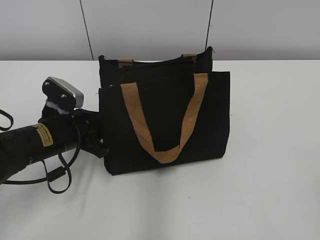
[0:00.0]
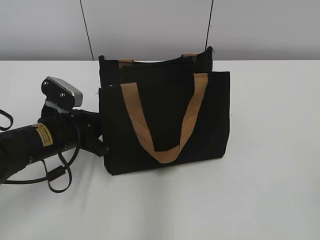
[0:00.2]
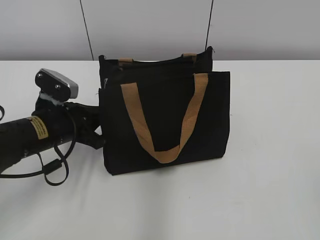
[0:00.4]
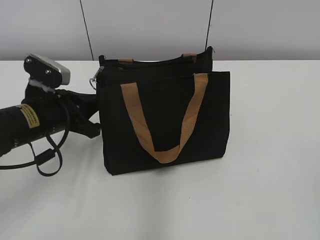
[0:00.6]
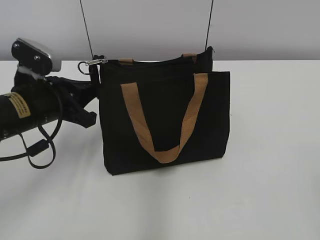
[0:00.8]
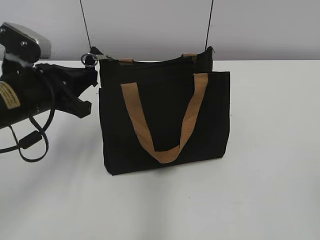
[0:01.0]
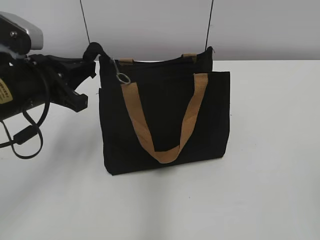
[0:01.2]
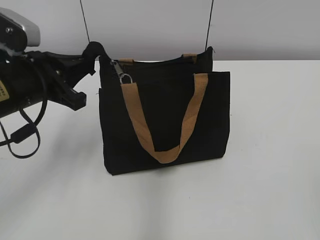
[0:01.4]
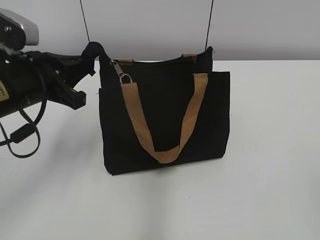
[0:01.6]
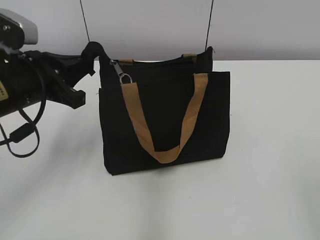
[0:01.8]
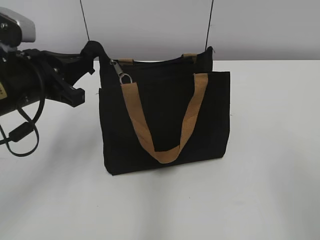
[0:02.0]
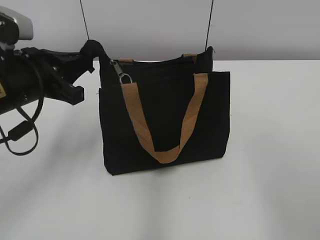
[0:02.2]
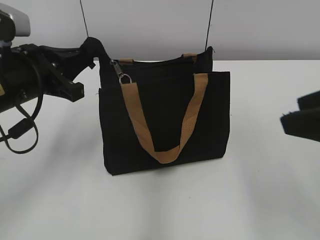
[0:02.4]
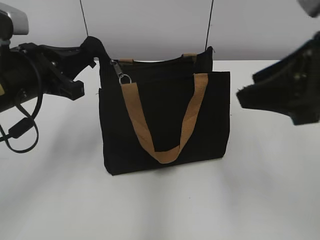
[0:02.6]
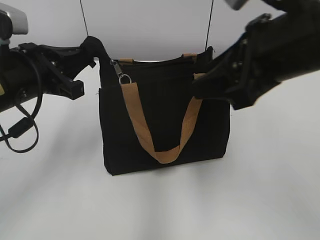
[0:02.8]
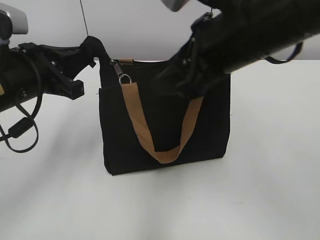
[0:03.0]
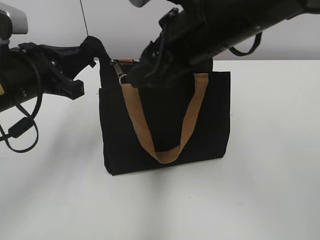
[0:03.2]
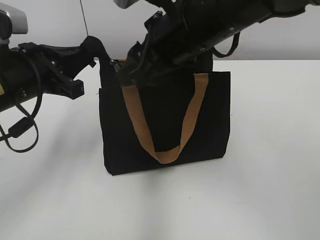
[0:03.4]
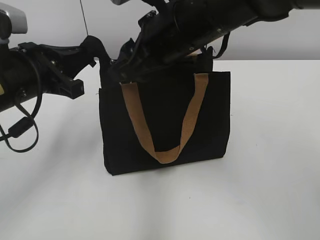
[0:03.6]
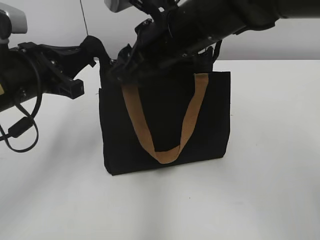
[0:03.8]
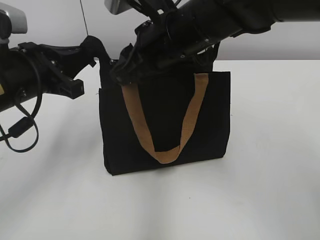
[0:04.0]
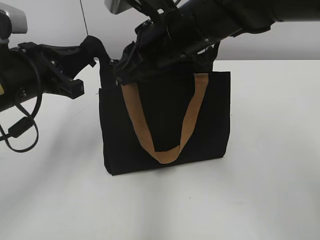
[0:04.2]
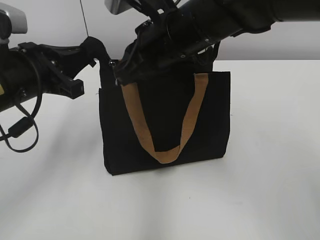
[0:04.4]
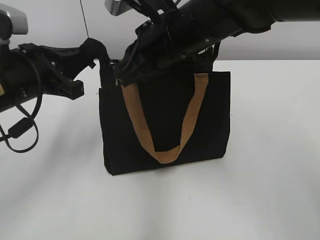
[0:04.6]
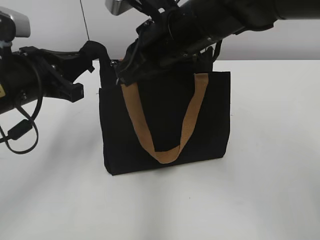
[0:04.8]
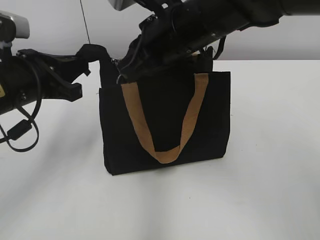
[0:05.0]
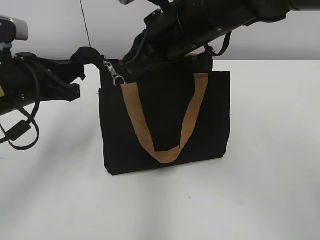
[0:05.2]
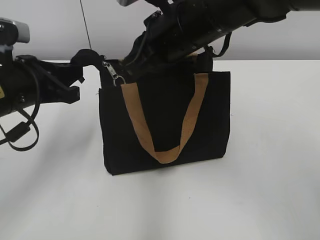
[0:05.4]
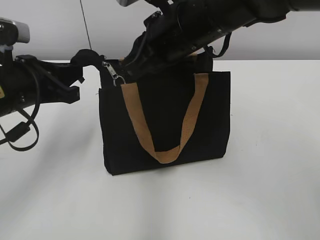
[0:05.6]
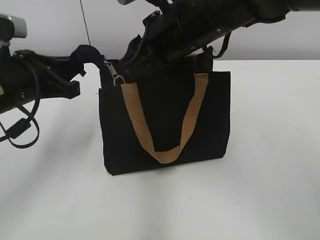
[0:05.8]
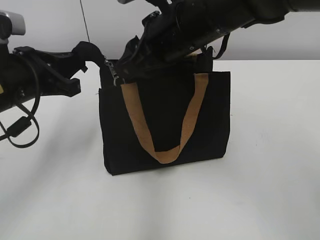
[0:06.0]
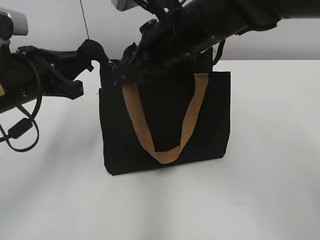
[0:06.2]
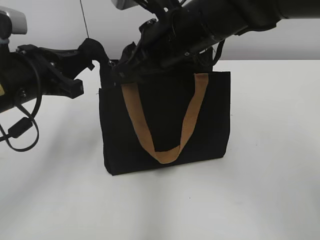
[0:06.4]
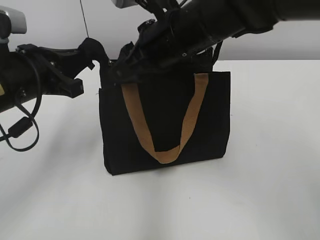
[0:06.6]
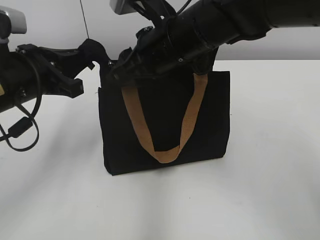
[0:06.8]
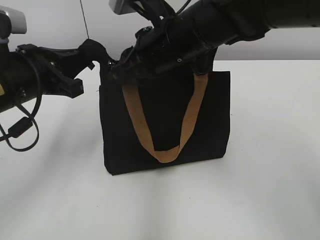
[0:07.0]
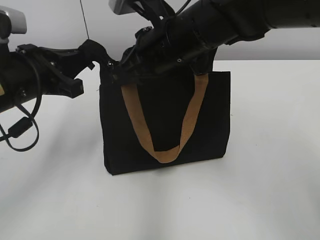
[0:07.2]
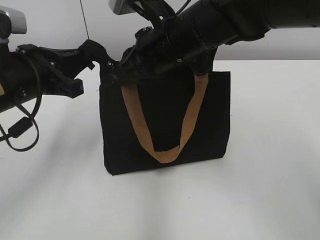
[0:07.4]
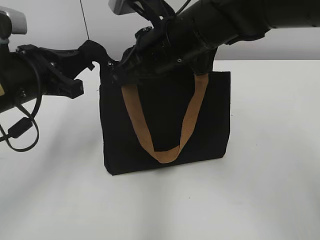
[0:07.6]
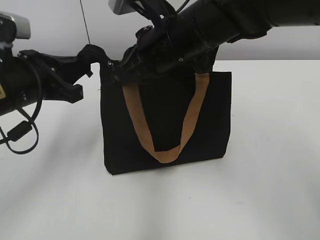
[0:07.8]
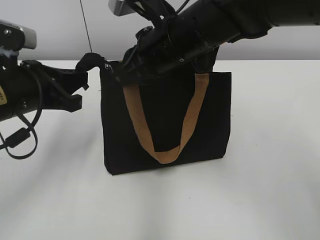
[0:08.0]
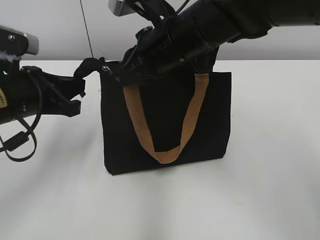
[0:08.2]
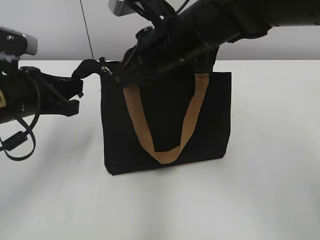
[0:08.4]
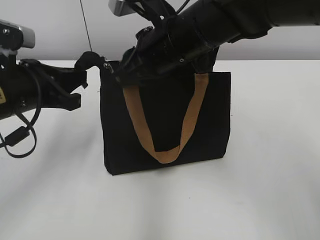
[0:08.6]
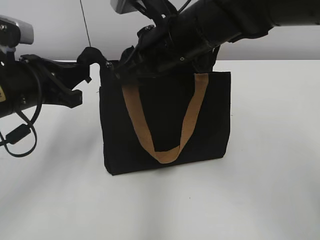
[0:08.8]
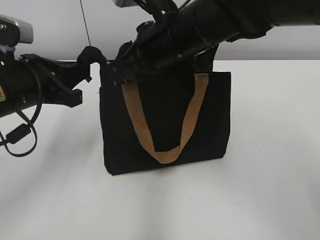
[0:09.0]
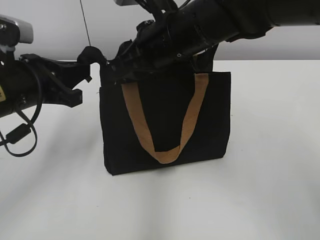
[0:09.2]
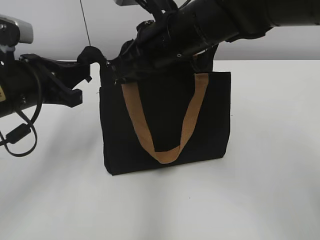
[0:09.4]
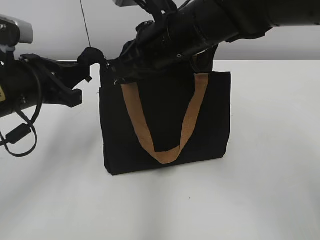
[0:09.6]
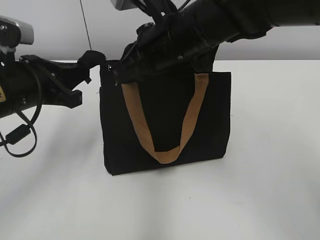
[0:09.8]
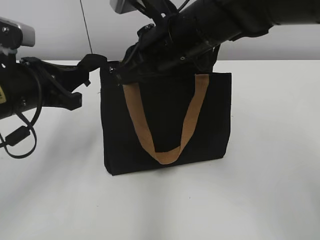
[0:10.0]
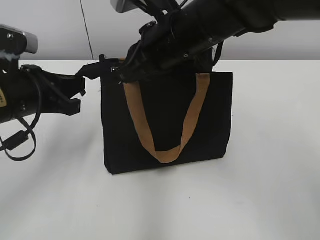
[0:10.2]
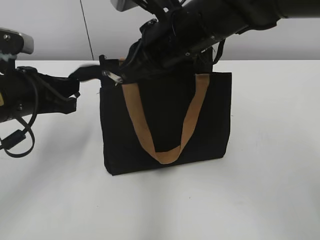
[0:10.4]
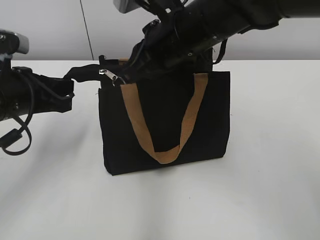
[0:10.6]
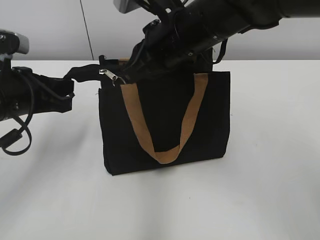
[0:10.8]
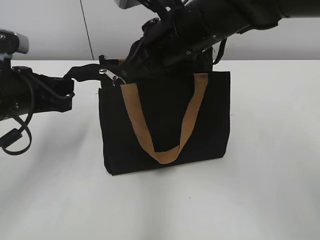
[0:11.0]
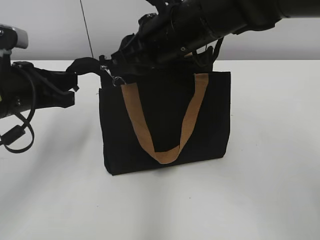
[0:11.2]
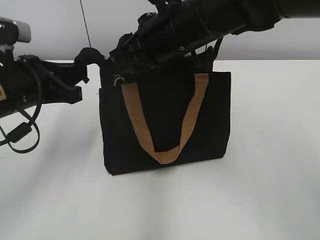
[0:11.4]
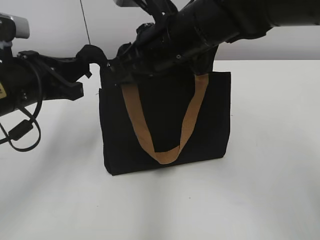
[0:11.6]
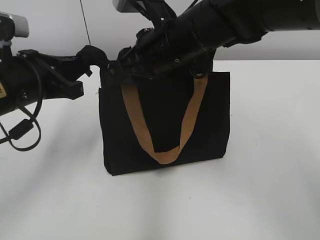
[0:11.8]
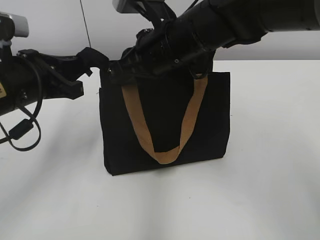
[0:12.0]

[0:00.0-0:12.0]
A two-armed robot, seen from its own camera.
0:00.0 to 0:01.6: The left gripper moves upward, roughly 10 cm, and closes its fingers.
0:01.6 to 0:03.0: The right gripper is displaced forward and to the left by about 30 cm.
0:03.0 to 0:04.4: The right gripper travels forward and to the left by some 10 cm, and closes its fingers.
0:04.4 to 0:06.0: The right gripper opens.
0:06.0 to 0:07.6: The right gripper closes.
0:07.6 to 0:09.0: The right gripper opens its fingers.
0:09.0 to 0:10.4: The right gripper closes.
0:10.4 to 0:12.0: The right gripper opens.

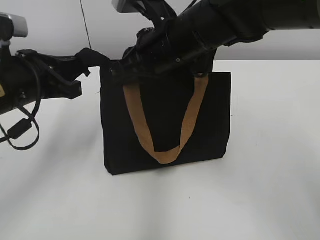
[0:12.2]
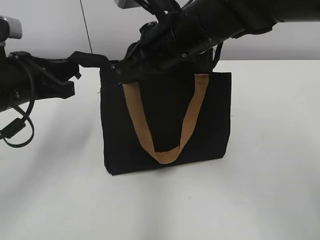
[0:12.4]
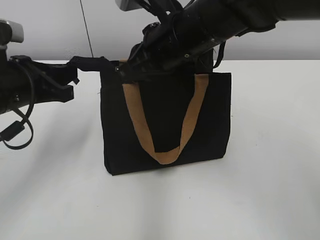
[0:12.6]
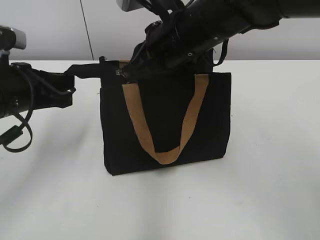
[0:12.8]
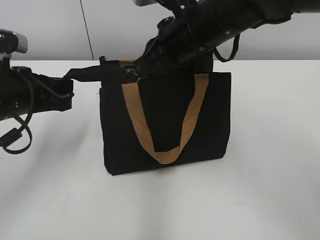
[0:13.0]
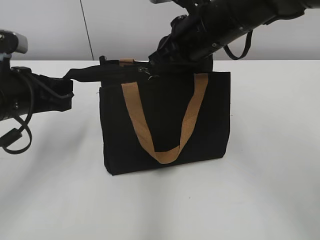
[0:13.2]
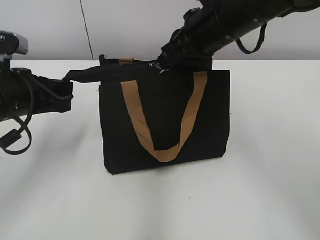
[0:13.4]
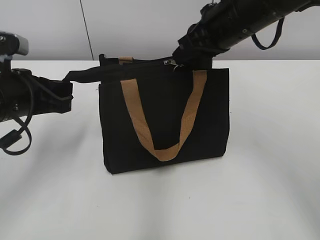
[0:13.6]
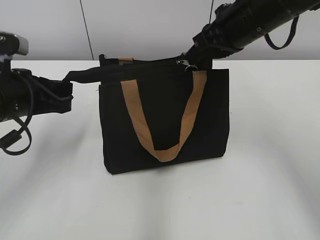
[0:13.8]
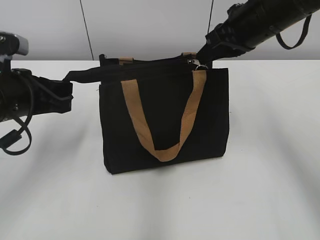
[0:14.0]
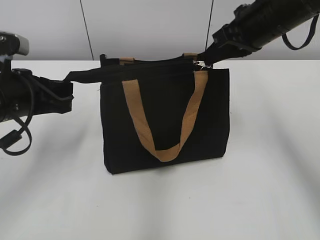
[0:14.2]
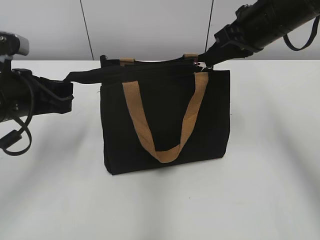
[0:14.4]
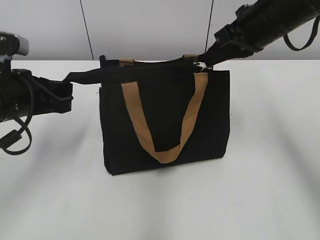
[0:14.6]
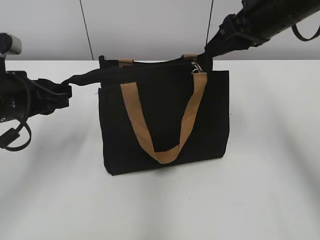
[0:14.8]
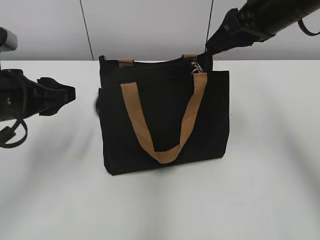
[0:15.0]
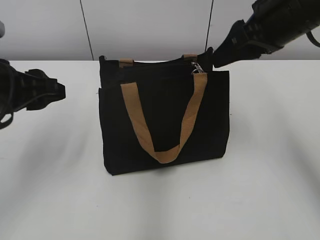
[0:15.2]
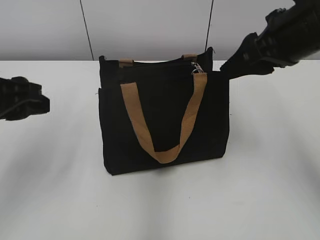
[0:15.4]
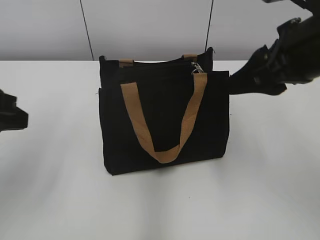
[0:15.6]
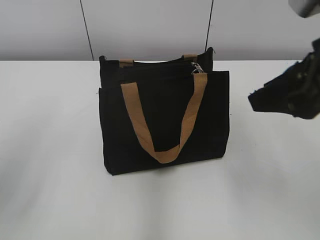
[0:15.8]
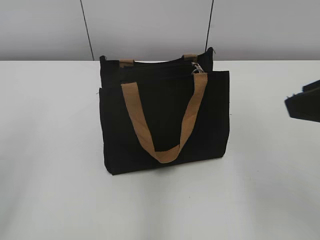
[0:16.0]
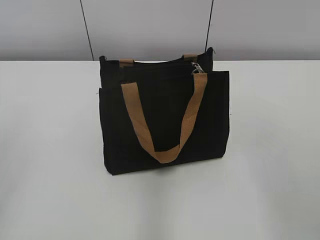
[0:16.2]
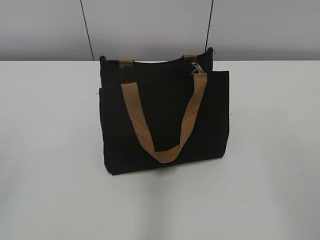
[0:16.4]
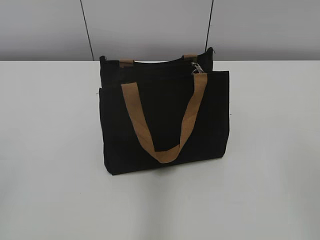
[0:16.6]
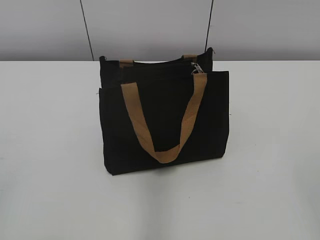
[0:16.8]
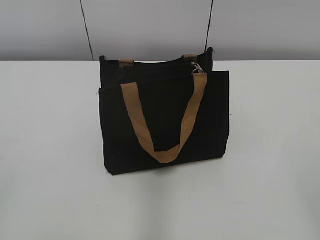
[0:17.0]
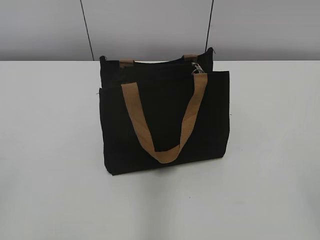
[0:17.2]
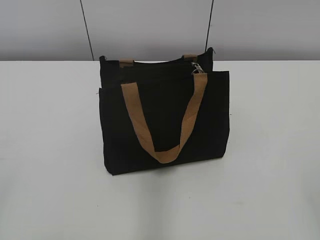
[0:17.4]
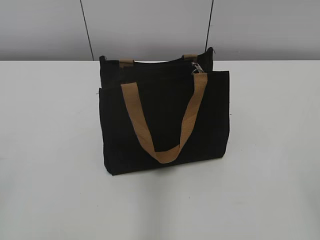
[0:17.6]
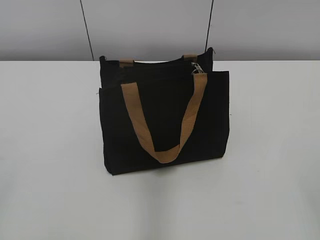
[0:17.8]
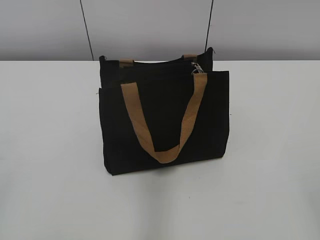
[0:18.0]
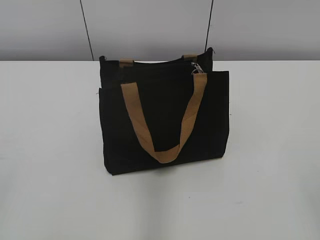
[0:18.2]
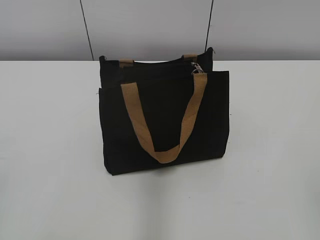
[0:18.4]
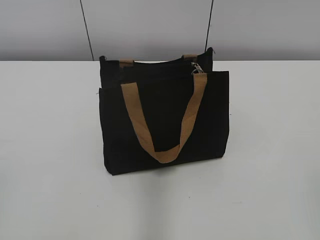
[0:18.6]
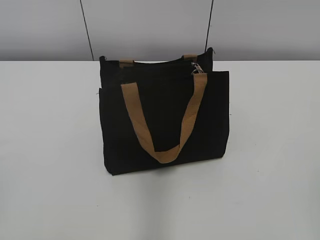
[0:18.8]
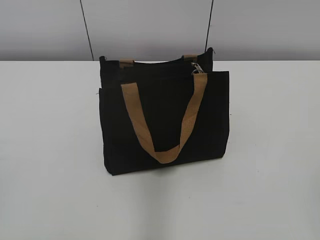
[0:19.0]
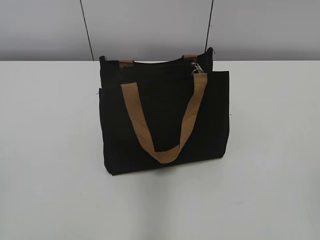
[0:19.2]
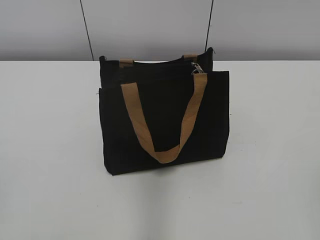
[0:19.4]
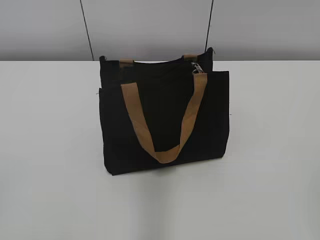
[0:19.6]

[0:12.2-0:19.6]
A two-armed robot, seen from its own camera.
Step, 0:12.2 to 0:14.6: Zip up the bag with your right hand.
Step, 0:14.8 to 0:15.0: Grab the zipper with your left hand.
0:12.2 to 0:13.6: The right gripper moves to the right, about 10 cm.
0:13.6 to 0:15.2: The right gripper goes some 5 cm to the right, and opens. The left gripper opens.
0:15.2 to 0:16.6: The right gripper goes approximately 30 cm backward. Meanwhile the left gripper moves backward and to the left, some 25 cm.

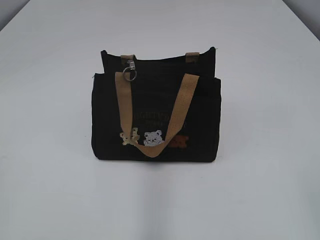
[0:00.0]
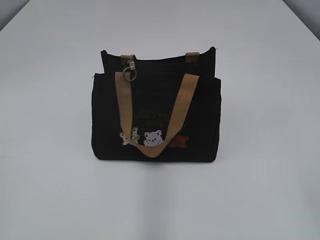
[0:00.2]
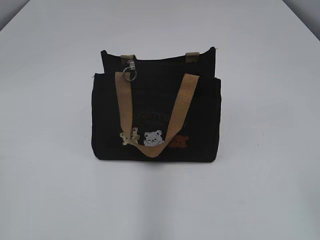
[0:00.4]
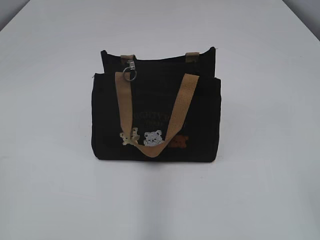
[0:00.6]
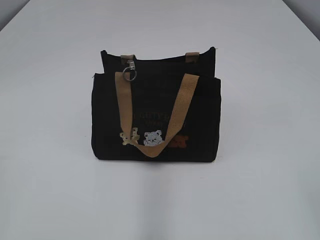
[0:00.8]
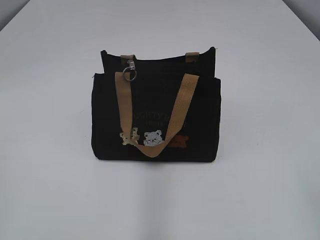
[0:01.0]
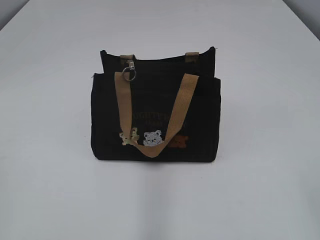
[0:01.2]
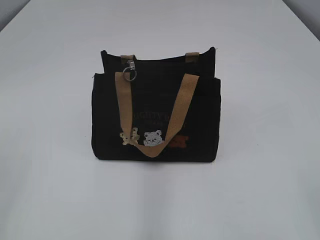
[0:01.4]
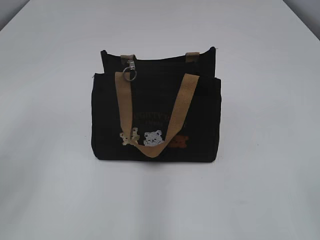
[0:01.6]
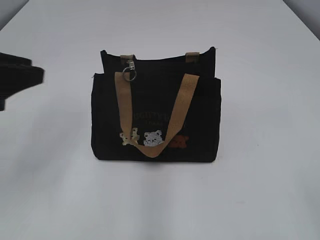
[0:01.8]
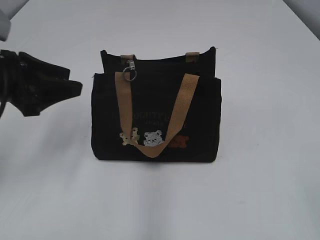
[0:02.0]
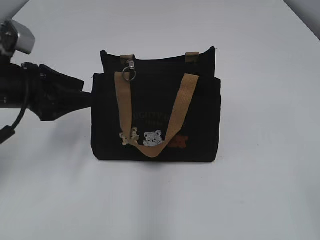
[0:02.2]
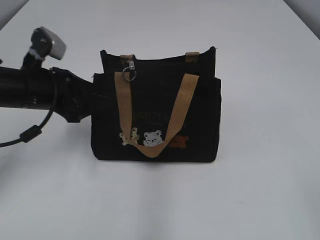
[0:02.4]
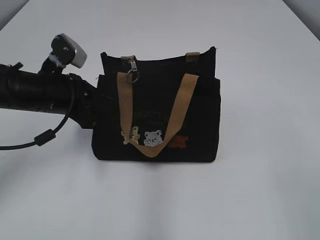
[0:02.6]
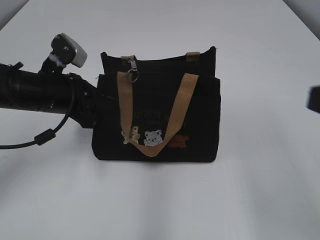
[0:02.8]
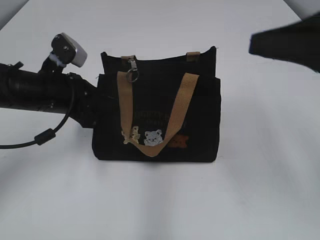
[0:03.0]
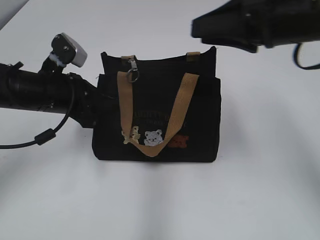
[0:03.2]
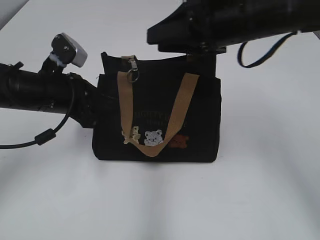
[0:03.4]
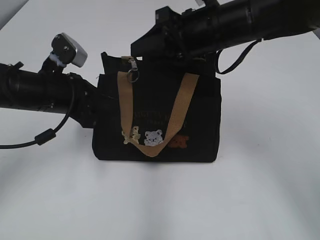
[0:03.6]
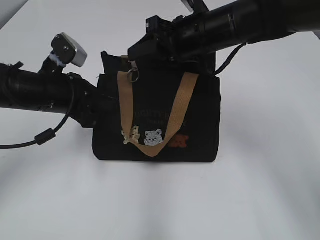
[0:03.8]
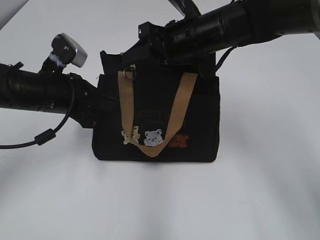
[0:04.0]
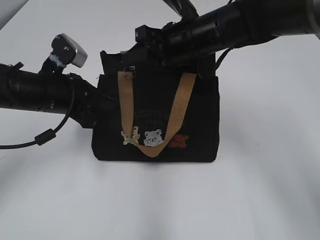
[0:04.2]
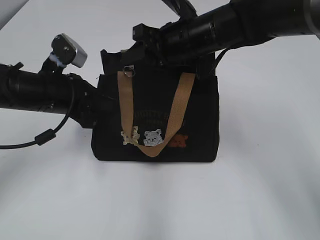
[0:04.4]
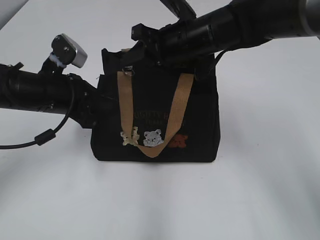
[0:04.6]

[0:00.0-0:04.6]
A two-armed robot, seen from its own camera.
0:01.6 to 0:03.0: The right gripper goes approximately 20 cm forward. Meanwhile the left gripper travels forward, downward and to the right by roughly 25 cm, and closes its fingers.
0:03.0 to 0:04.6: The right gripper travels forward, to the left and downward by about 25 cm.
